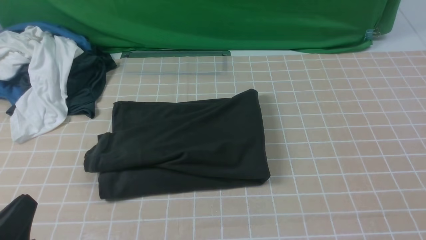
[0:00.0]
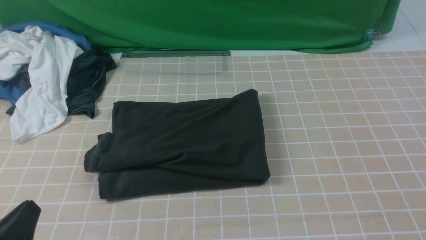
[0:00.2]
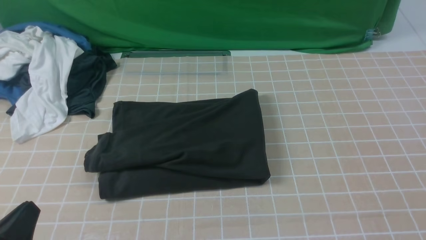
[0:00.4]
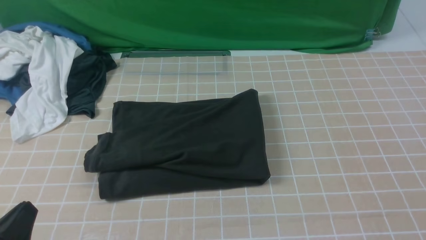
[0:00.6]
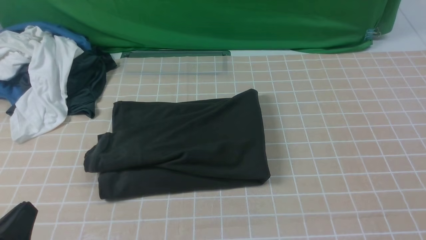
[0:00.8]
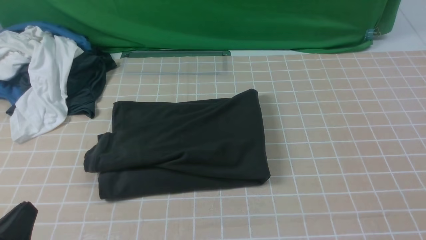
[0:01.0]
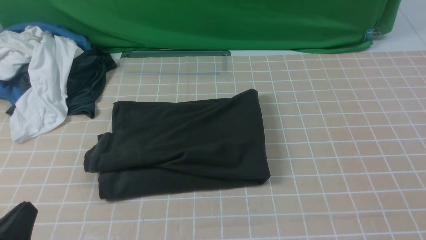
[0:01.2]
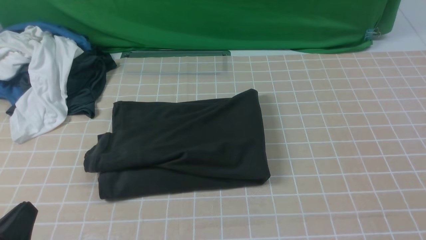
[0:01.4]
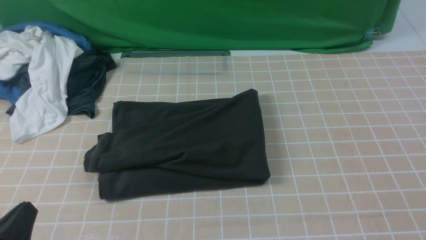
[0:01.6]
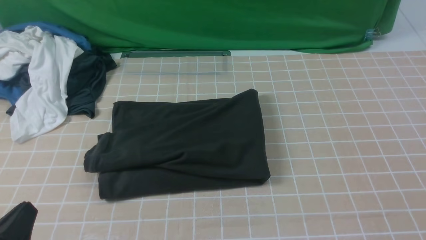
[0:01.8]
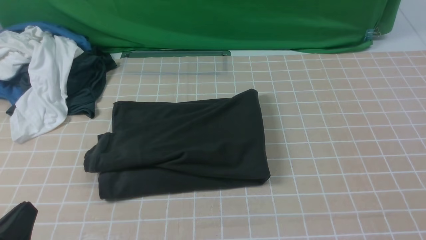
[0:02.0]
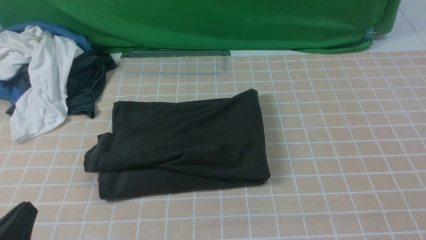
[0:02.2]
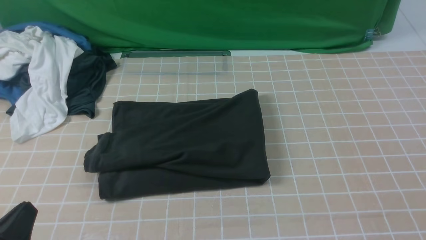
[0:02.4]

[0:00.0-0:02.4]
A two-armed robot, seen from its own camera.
0:00.0 to 0:02.4: Both grippers stay put.

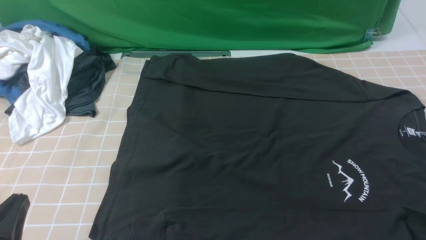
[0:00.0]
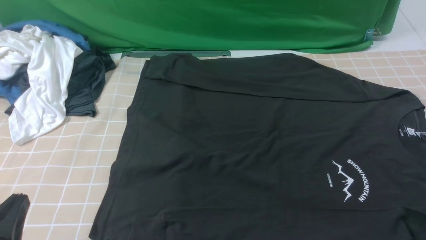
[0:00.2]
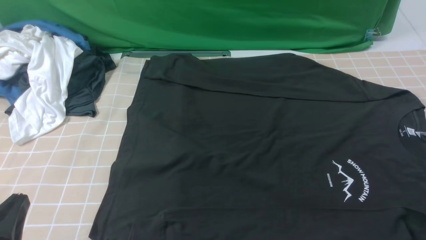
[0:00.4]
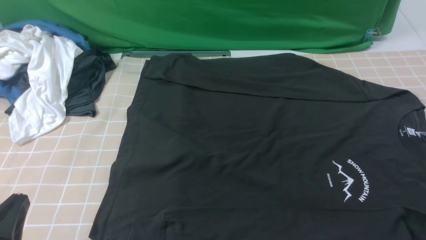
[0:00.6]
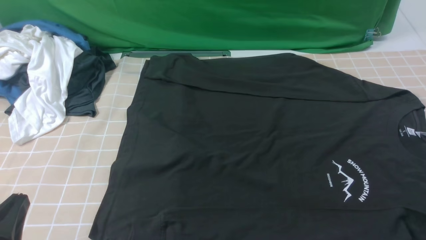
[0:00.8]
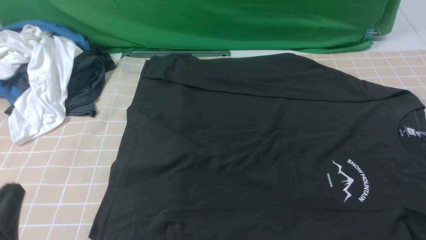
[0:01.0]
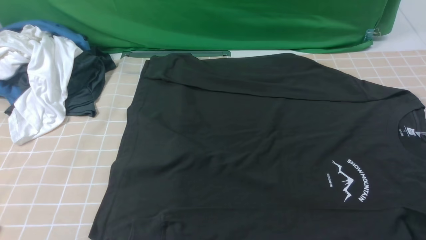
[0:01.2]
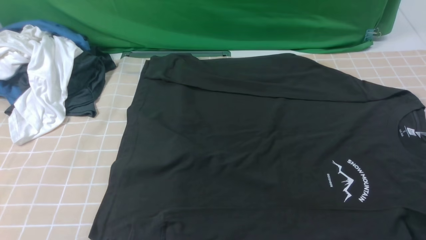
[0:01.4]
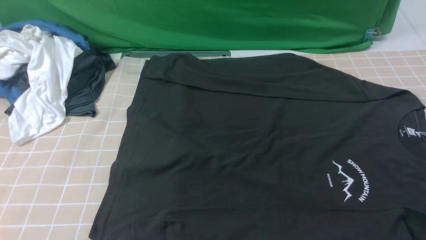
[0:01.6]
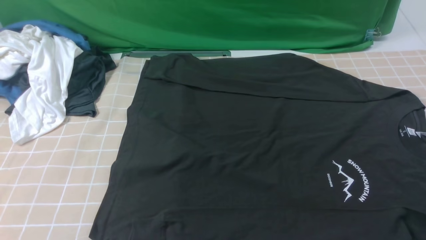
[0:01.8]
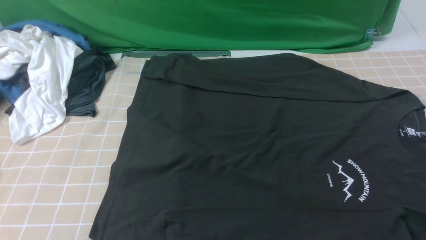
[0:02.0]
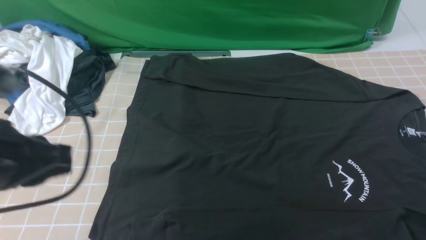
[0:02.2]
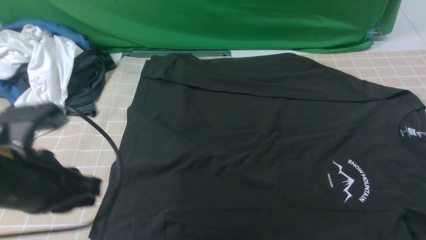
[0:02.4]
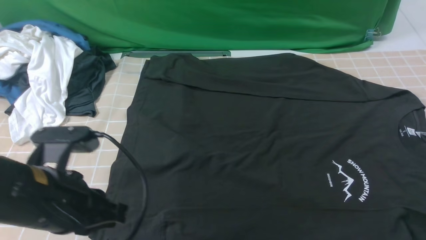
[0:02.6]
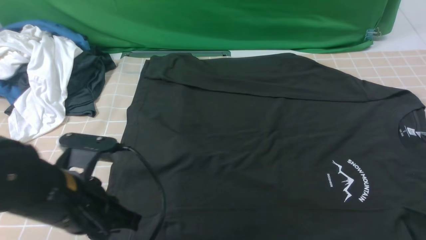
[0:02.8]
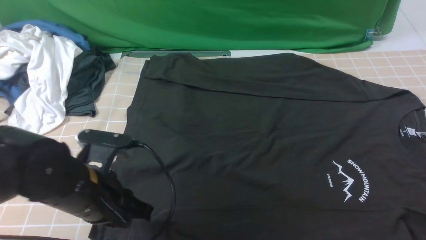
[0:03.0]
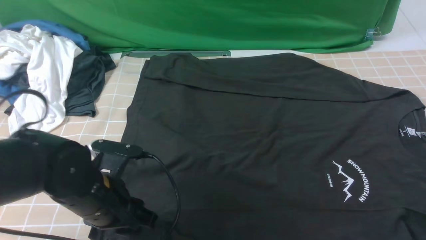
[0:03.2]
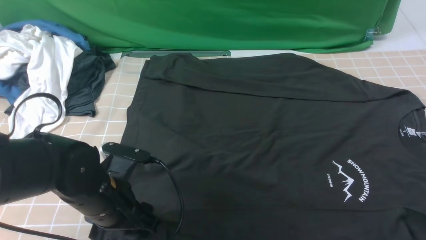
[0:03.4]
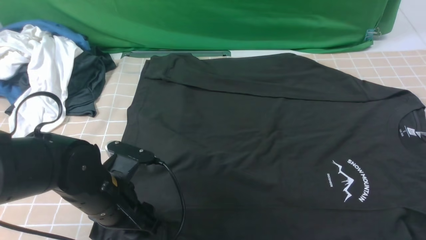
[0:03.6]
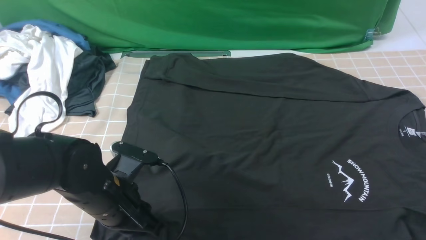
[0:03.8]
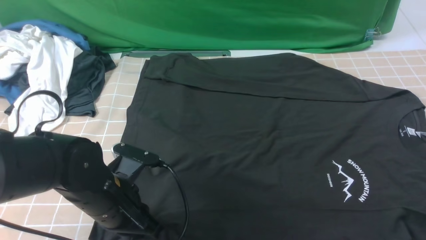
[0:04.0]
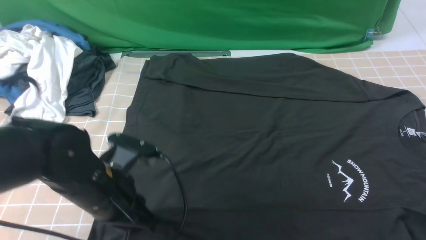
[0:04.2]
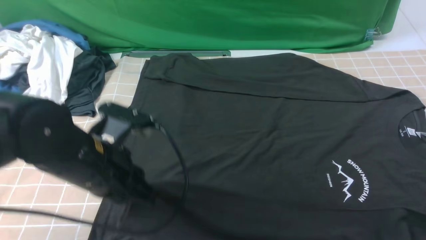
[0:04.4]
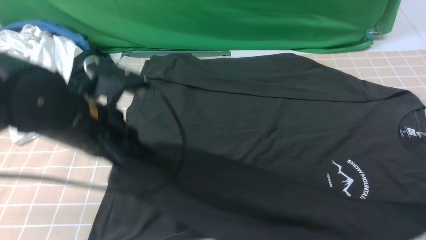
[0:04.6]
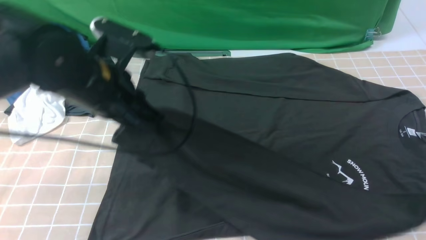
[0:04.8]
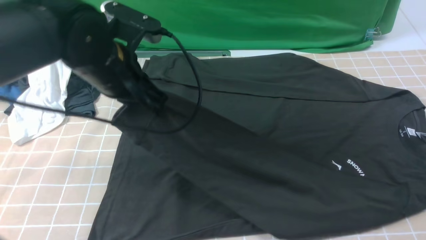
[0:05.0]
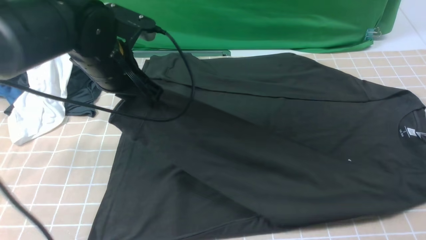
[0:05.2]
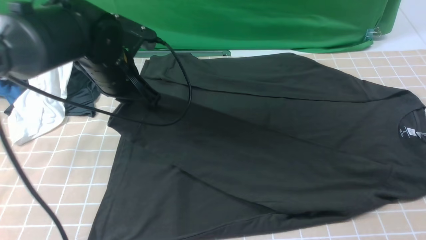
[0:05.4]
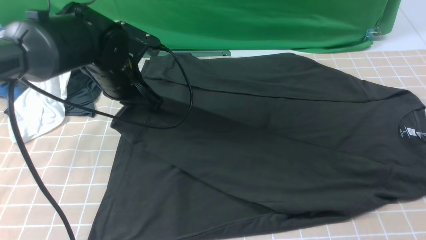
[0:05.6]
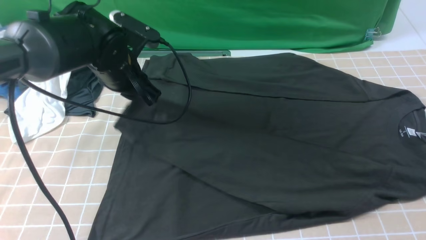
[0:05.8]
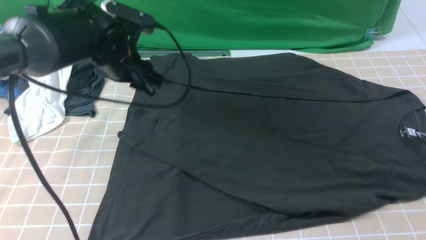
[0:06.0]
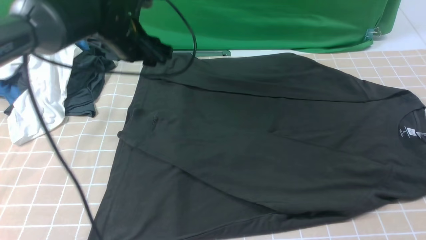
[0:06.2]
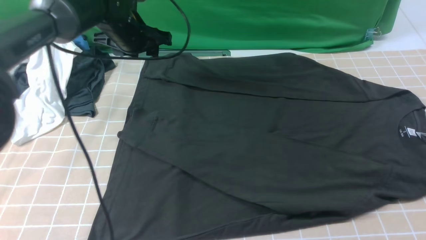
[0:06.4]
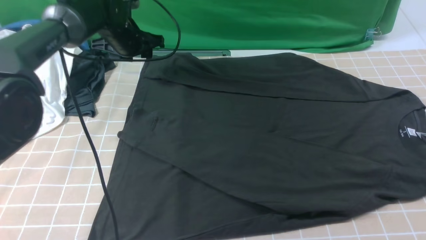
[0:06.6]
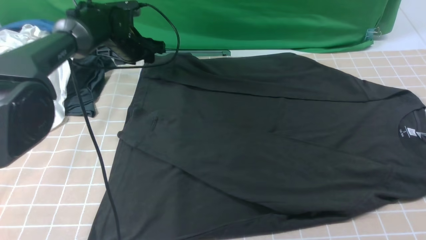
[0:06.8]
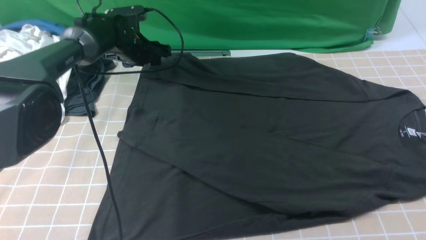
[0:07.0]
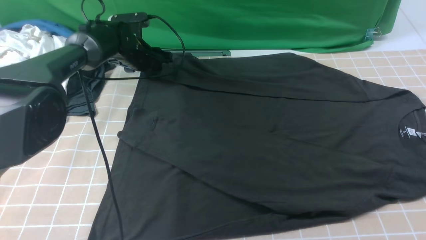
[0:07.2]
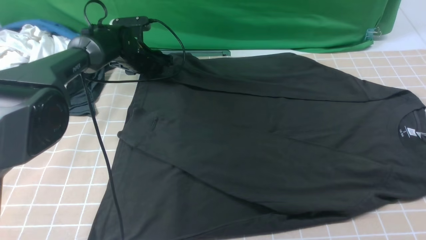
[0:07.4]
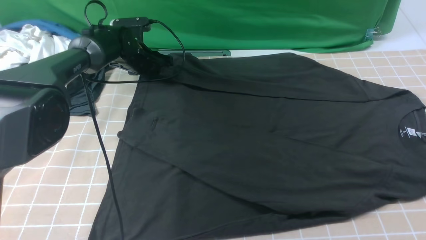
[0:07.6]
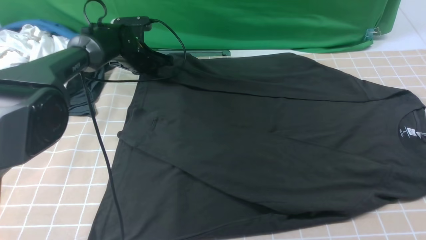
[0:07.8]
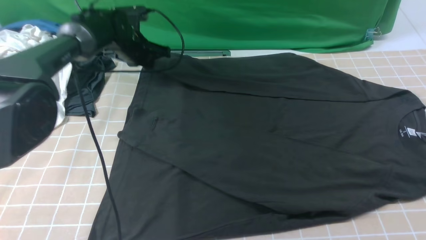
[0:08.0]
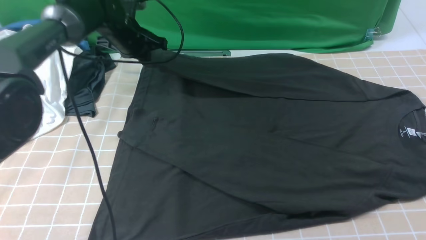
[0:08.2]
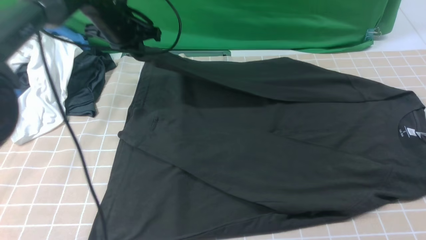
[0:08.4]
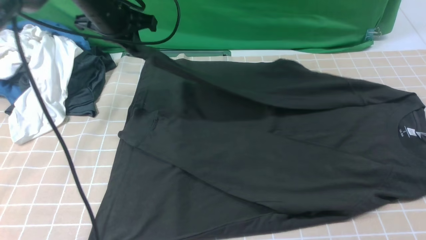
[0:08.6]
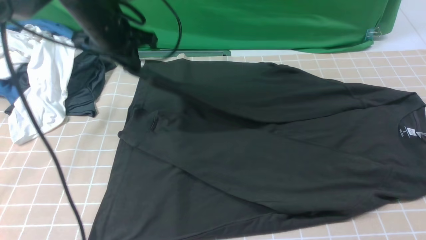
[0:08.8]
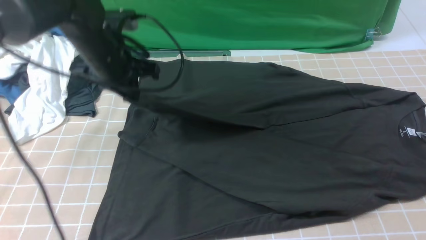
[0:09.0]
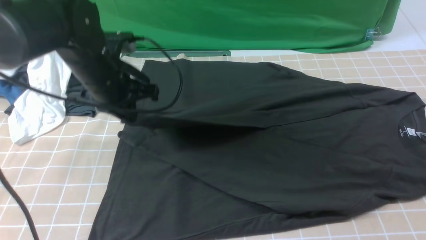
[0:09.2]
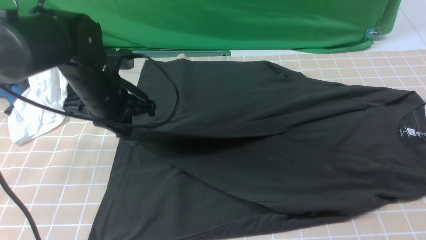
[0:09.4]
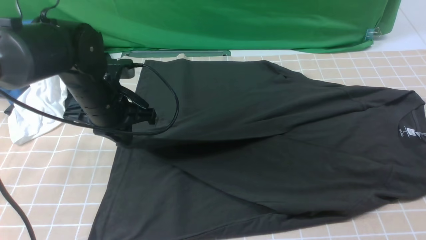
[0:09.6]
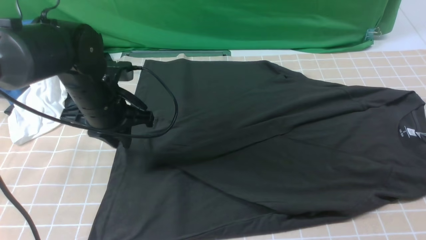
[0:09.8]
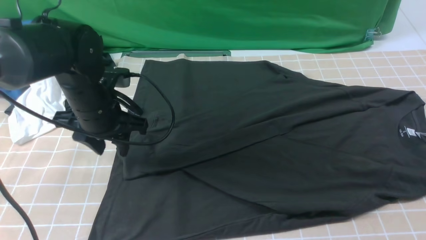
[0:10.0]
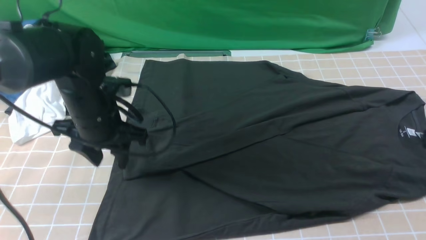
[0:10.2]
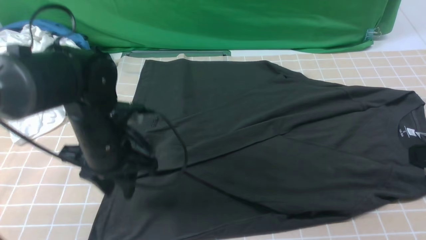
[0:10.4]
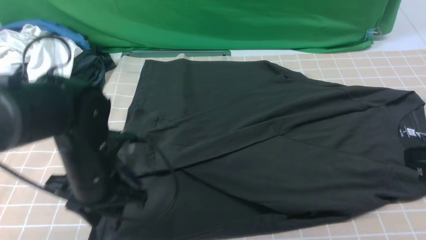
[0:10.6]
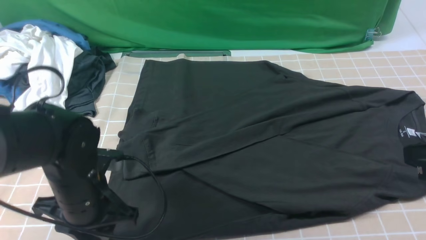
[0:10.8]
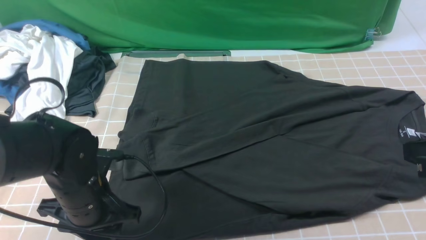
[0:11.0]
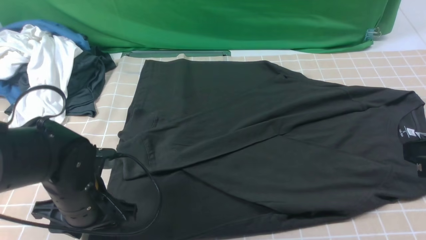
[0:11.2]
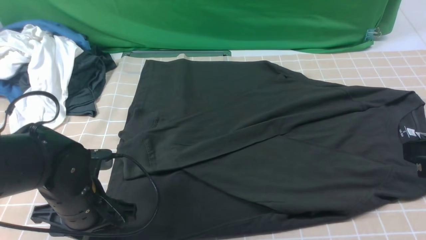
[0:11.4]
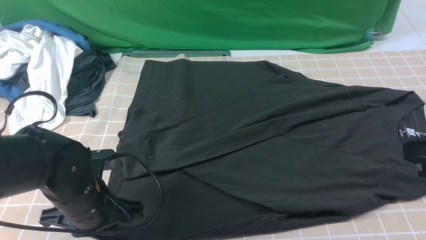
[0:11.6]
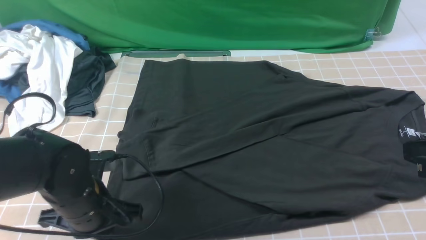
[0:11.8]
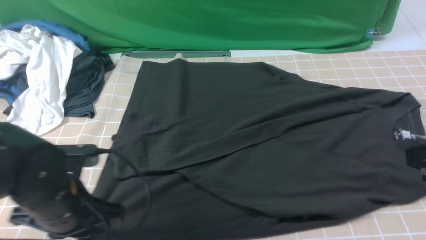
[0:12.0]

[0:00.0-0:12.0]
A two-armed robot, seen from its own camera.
Step, 0:00.0 to 0:03.8: use the left arm to clamp the cuff closest to it.
Step, 0:04.0 to 0:05.8: use the left arm to drag and place the cuff at the centered position on the left edge of the fabric.
Step, 0:06.0 to 0:07.6: use the left arm to clamp the cuff farthest from it.
Step, 0:07.8 to 0:09.8: use the left arm to drag and drop the cuff onto the cuff closest to the left arm.
0:00.0 to 0:01.6: The left gripper travels upward by some 10 cm.
0:01.6 to 0:03.0: The left gripper is displaced forward, to the right and downward by approximately 20 cm.
0:03.0 to 0:04.4: The left gripper moves approximately 5 cm, and opens, then closes again.
0:04.4 to 0:06.0: The left gripper goes approximately 20 cm forward, and opens.
0:06.0 to 0:07.6: The left gripper shifts some 20 cm forward and downward, and closes.
0:07.6 to 0:09.0: The left gripper moves backward and upward, approximately 20 cm, and closes up.
0:09.0 to 0:10.4: The left gripper is displaced backward and downward by roughly 15 cm, and opens.
0:10.4 to 0:12.0: The left gripper heads backward, covering some 10 cm, and closes.

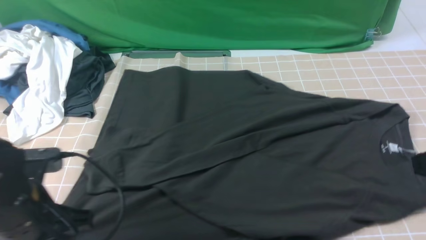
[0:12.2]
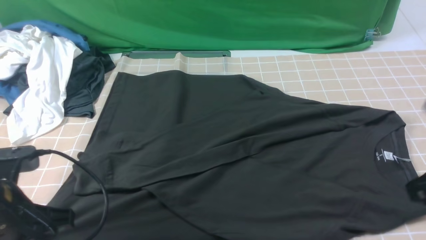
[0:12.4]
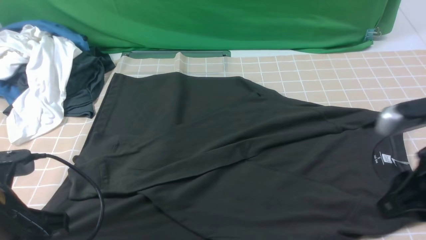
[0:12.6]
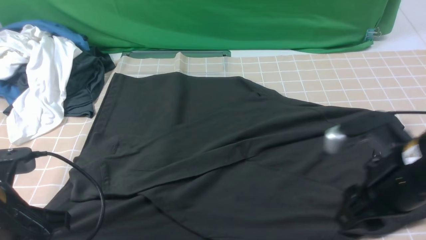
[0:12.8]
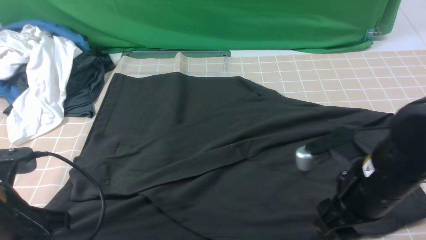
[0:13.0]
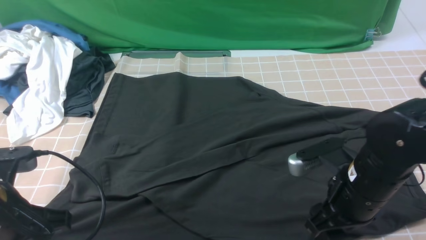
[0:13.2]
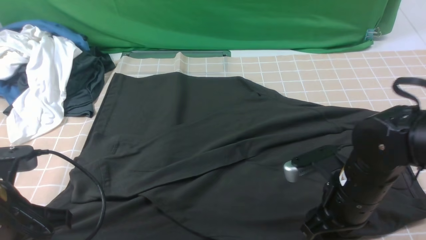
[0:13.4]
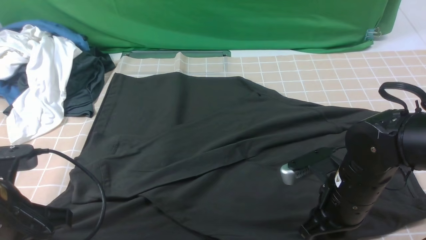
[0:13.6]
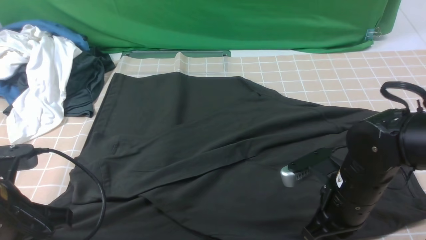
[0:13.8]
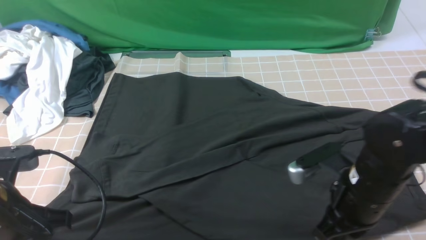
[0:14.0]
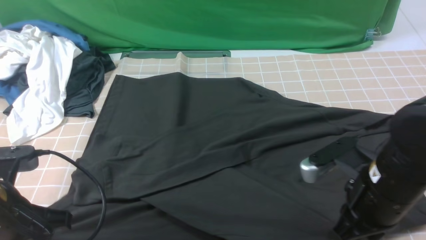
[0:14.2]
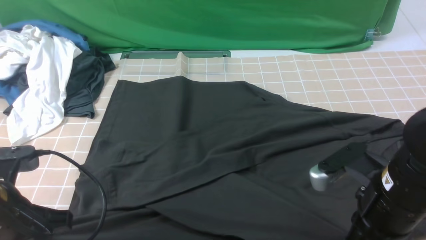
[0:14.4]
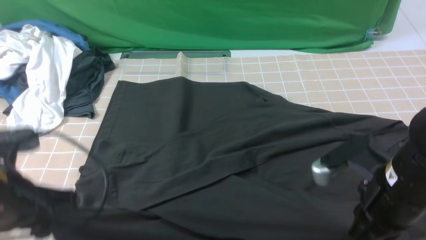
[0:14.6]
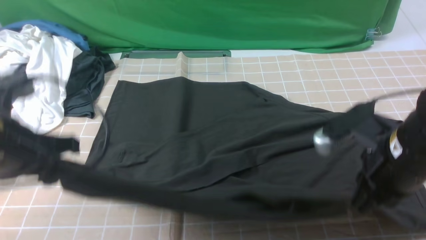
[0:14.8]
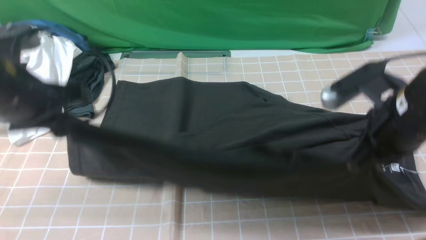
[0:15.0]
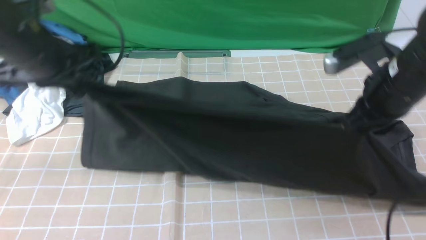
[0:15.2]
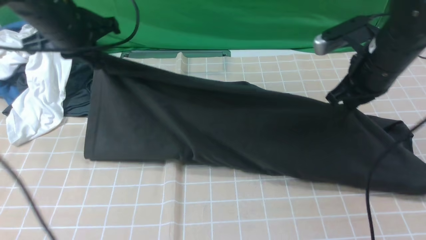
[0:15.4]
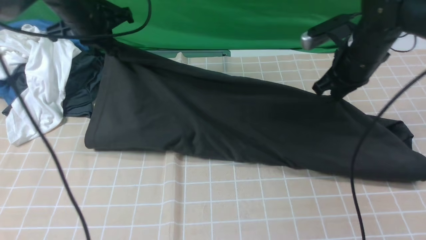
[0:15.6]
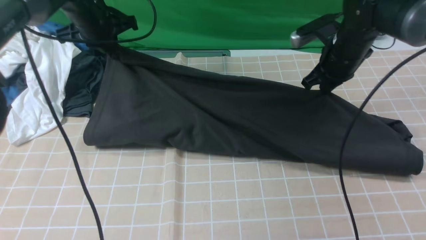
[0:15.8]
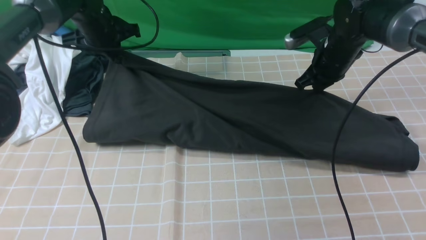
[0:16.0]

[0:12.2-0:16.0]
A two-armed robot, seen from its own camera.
0:12.2 to 0:13.4: The right gripper heads downward, to the left and forward, covering roughly 20 cm, and opens its fingers.
0:13.4 to 0:14.8: The left gripper is displaced upward and forward by some 10 cm. The right gripper moves upward, roughly 10 cm, and closes.
0:14.8 to 0:16.0: The two grippers go about 25 cm forward.
